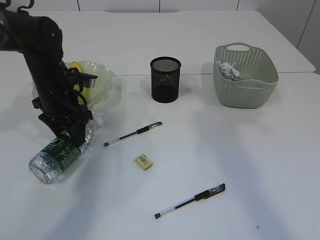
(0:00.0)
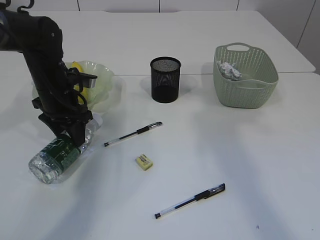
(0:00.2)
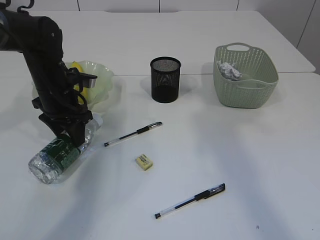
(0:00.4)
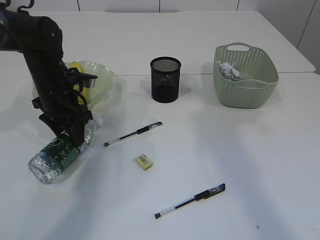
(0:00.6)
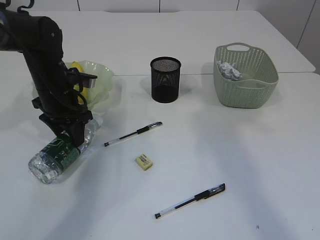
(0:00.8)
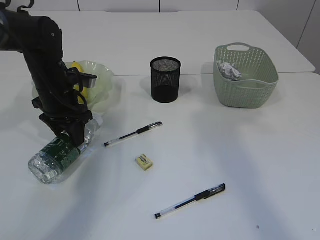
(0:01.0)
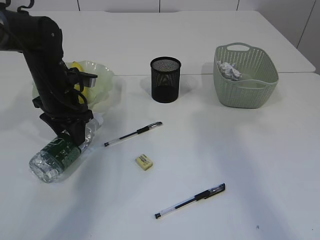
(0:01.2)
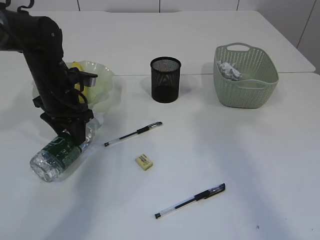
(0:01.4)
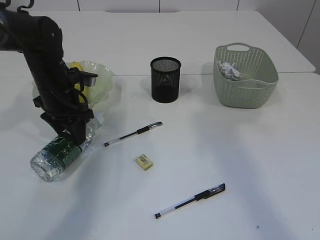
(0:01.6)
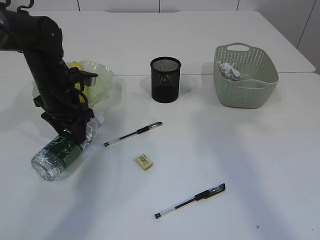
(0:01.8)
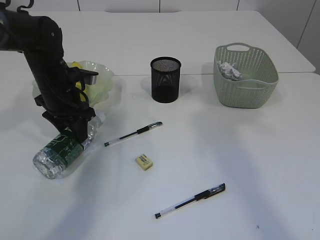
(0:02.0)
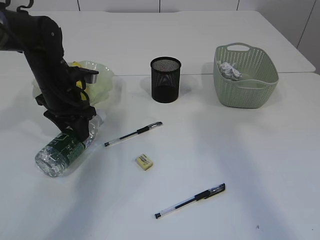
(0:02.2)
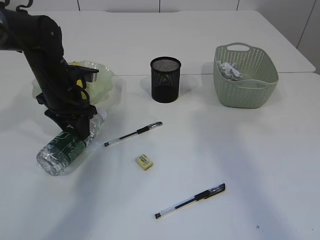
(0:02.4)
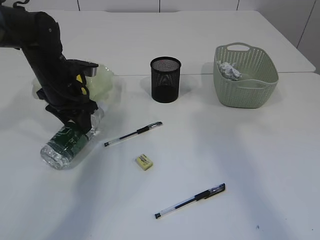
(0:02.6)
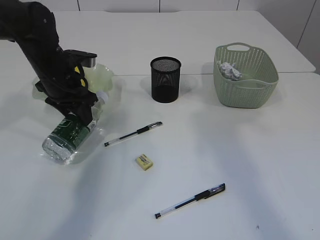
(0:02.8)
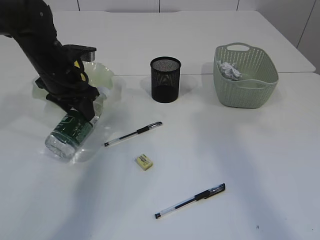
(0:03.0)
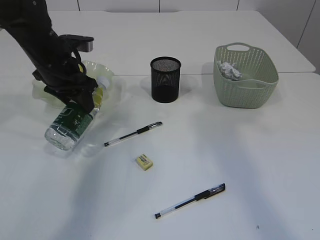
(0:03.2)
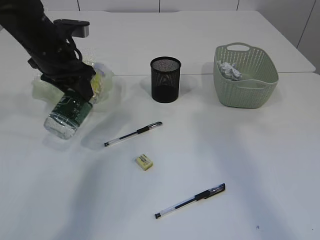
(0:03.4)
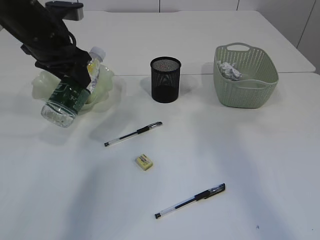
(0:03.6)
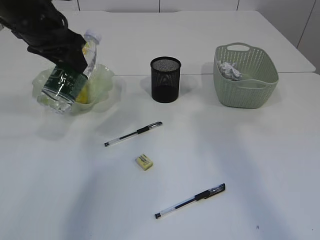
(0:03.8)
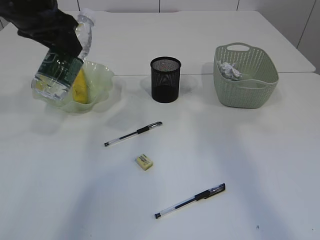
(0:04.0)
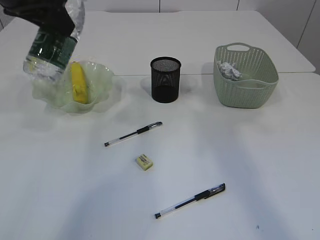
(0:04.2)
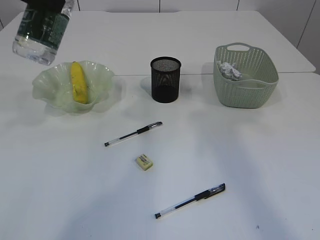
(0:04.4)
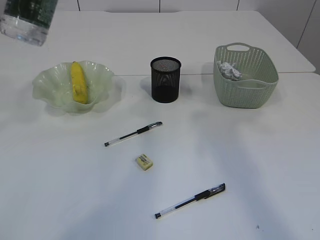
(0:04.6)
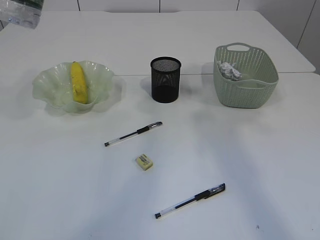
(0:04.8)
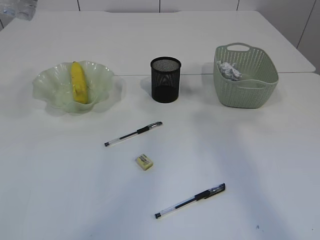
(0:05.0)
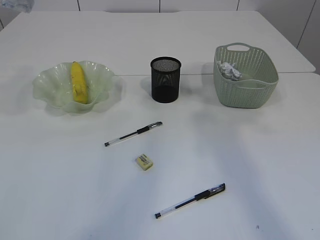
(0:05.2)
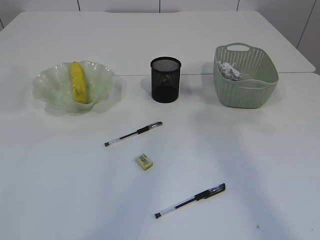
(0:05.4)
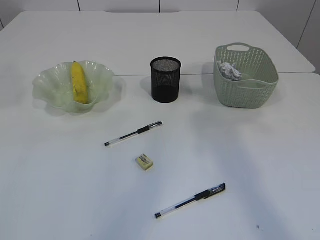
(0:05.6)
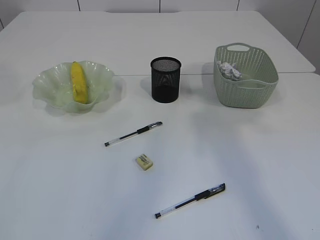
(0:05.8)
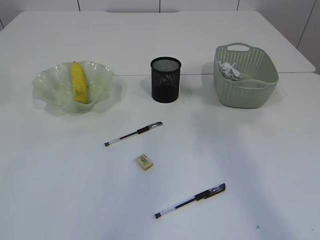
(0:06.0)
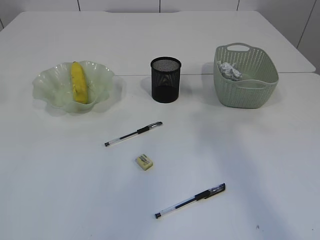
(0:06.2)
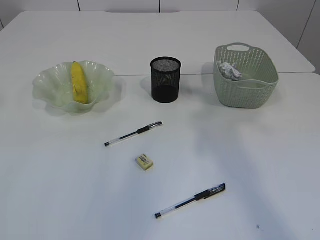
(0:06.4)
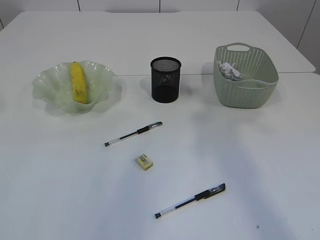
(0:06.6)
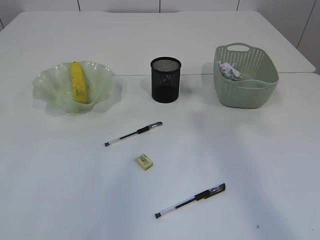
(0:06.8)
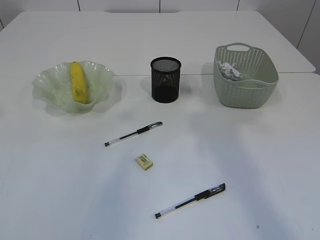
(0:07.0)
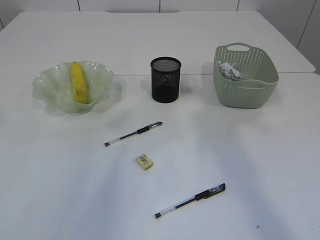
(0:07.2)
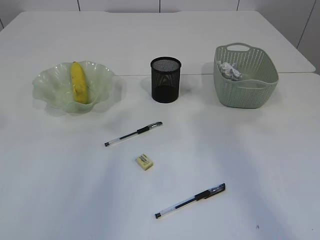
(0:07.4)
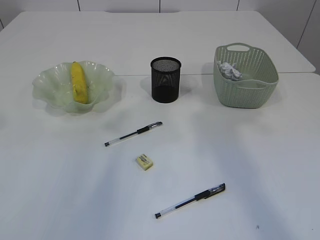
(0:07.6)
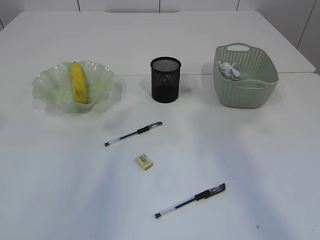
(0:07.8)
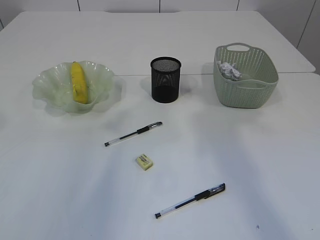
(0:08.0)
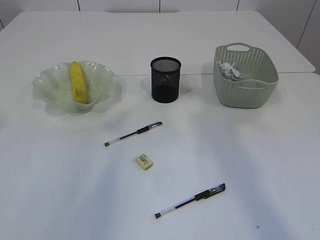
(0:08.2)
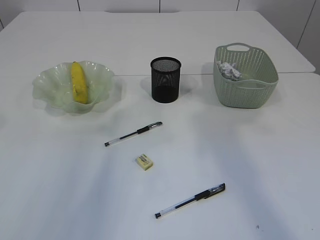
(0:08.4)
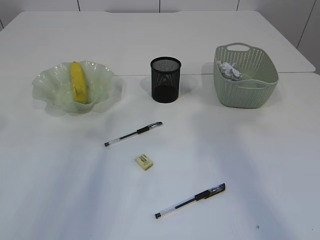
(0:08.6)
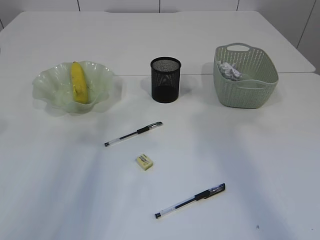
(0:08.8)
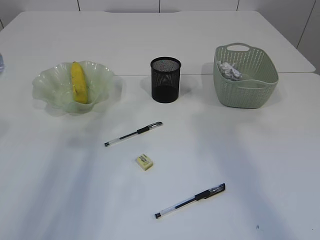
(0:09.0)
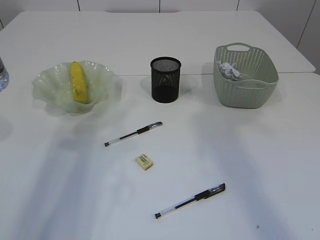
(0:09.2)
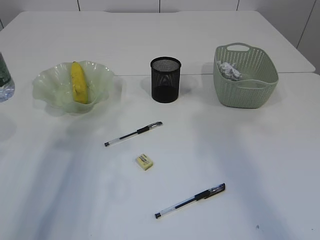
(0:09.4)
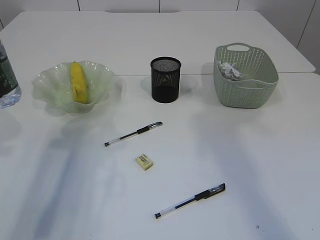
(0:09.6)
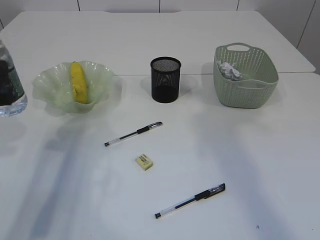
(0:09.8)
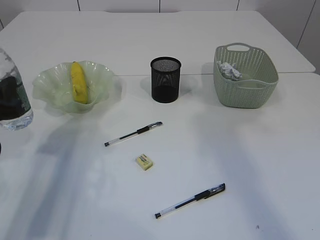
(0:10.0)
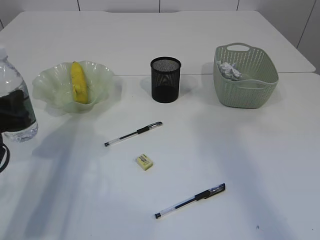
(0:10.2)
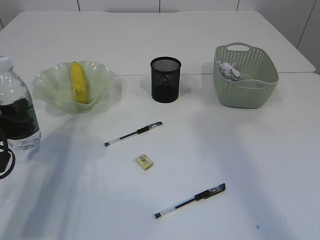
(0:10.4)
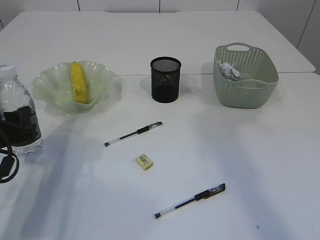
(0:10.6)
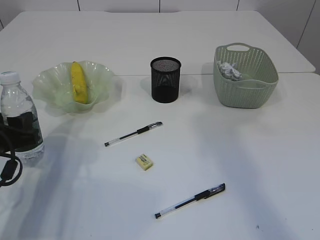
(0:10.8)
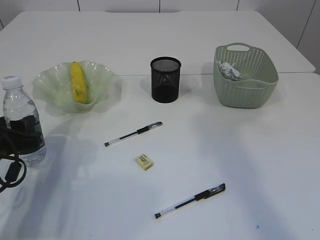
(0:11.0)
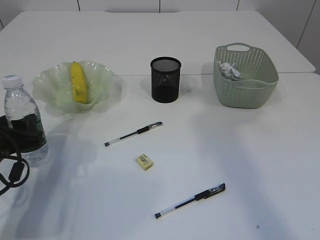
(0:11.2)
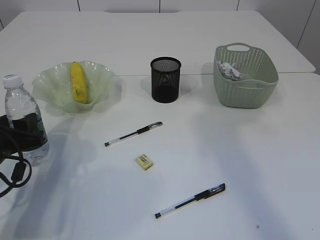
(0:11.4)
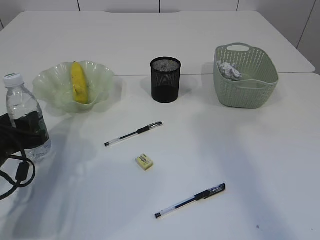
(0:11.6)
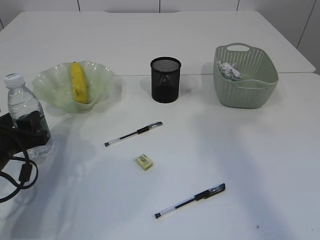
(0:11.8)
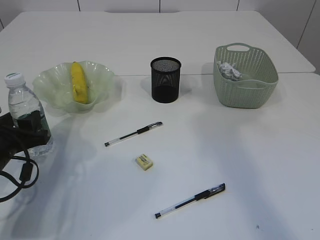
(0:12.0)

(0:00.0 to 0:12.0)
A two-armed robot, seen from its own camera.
0:00.0 - 0:01.6: Both grippers stay about where they are.
0:01.6 - 0:03.0: The grippers move only a little.
0:03.0 - 0:04.4: The left gripper goes roughly 20 cm upward.
0:04.4 - 0:06.0: The left gripper is displaced upward and backward by some 15 cm.
0:09.0 - 0:10.4: The left gripper travels downward by approximately 15 cm.
0:10.4 - 0:12.0: The left gripper moves downward, some 5 cm.

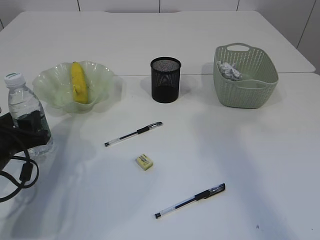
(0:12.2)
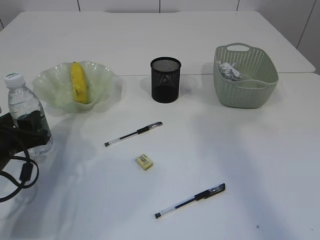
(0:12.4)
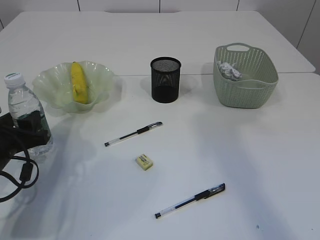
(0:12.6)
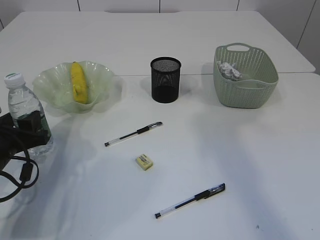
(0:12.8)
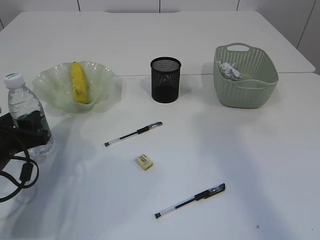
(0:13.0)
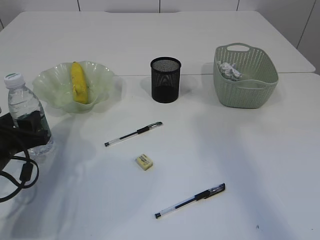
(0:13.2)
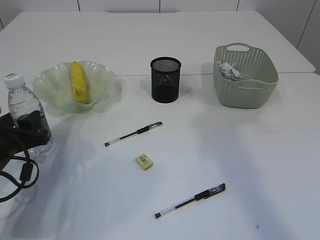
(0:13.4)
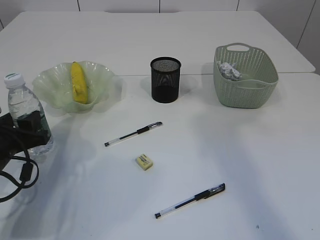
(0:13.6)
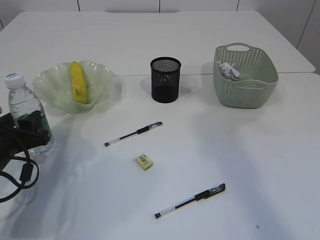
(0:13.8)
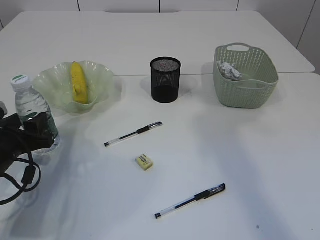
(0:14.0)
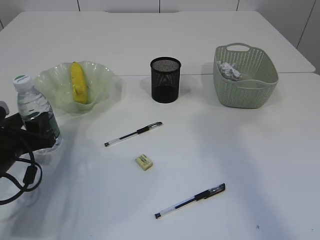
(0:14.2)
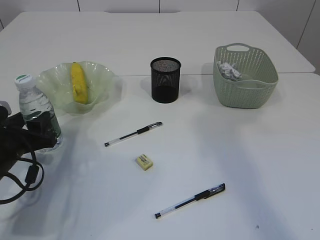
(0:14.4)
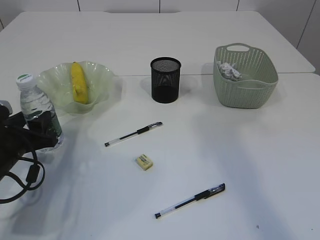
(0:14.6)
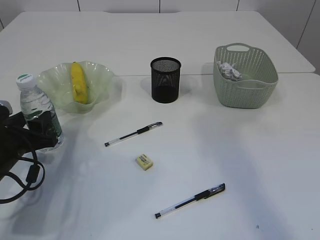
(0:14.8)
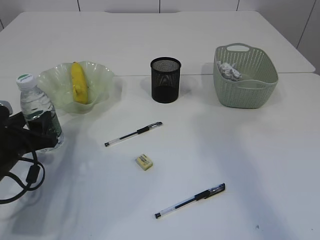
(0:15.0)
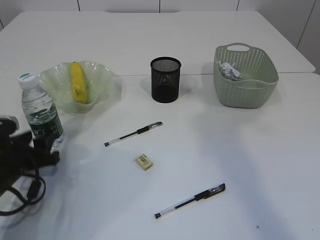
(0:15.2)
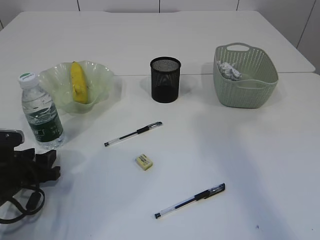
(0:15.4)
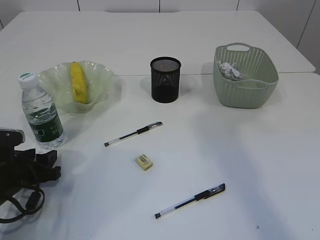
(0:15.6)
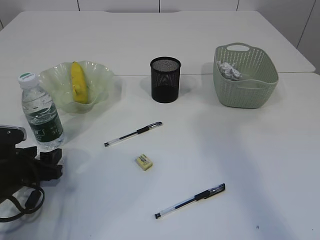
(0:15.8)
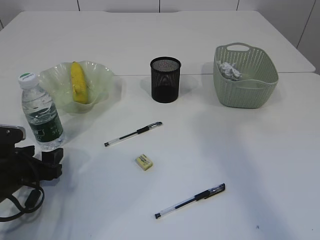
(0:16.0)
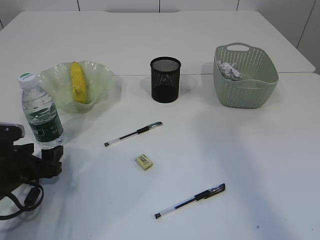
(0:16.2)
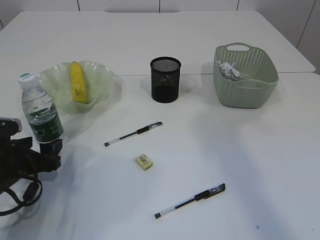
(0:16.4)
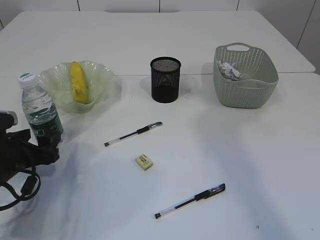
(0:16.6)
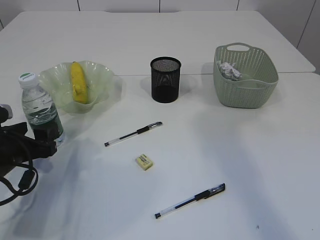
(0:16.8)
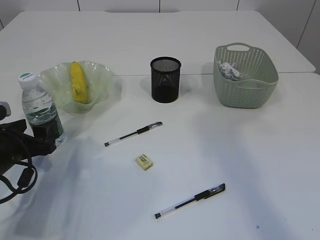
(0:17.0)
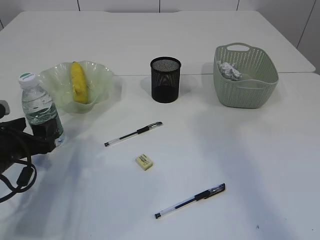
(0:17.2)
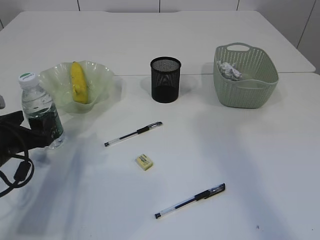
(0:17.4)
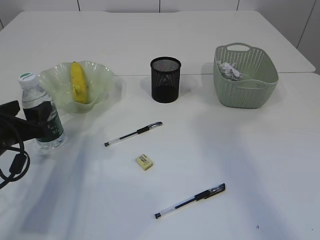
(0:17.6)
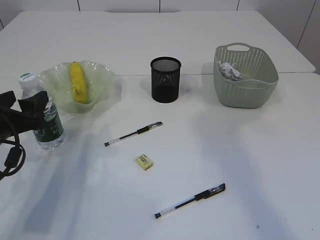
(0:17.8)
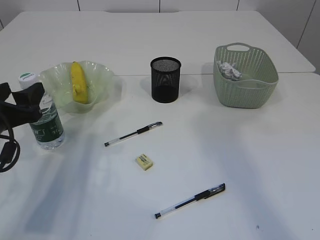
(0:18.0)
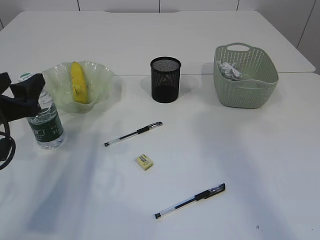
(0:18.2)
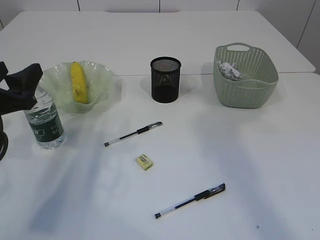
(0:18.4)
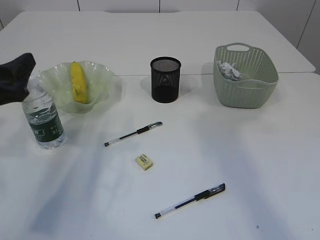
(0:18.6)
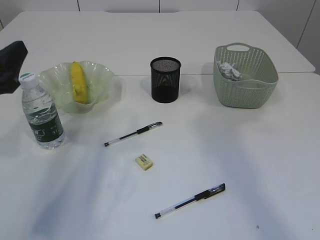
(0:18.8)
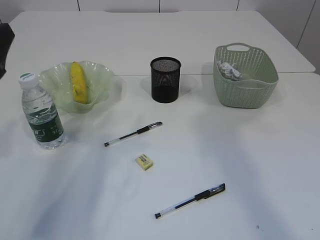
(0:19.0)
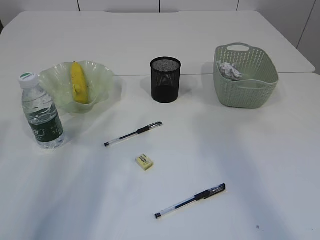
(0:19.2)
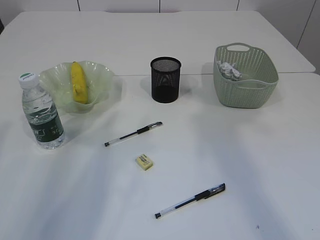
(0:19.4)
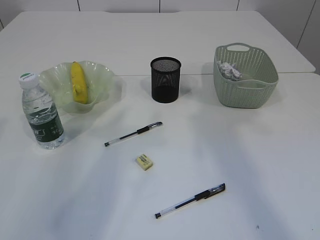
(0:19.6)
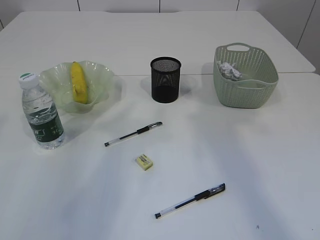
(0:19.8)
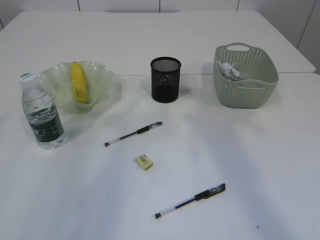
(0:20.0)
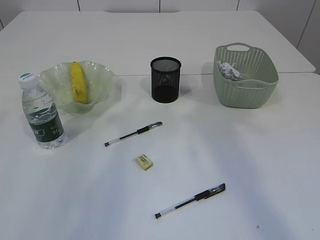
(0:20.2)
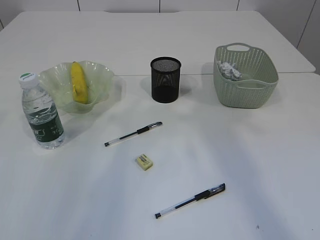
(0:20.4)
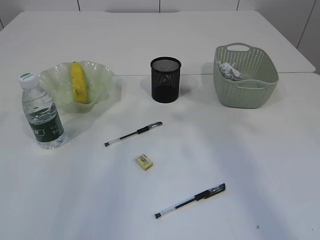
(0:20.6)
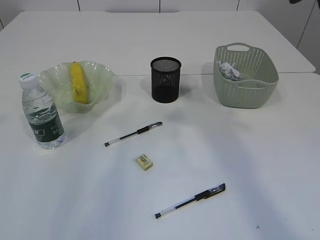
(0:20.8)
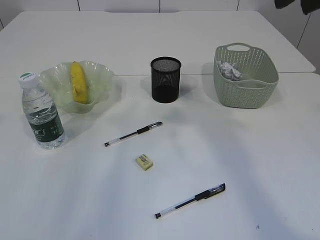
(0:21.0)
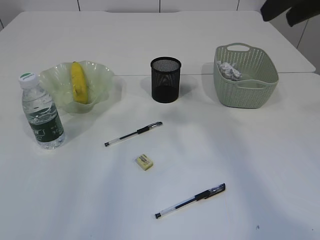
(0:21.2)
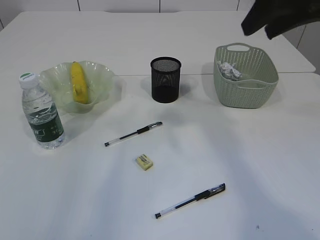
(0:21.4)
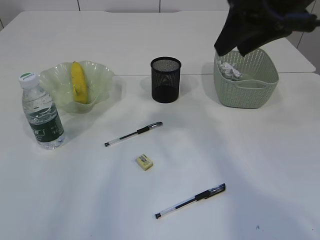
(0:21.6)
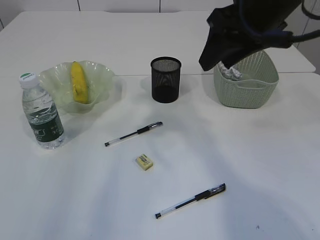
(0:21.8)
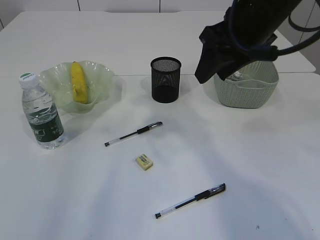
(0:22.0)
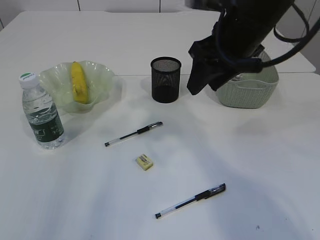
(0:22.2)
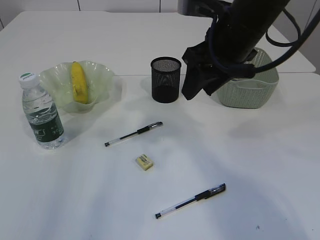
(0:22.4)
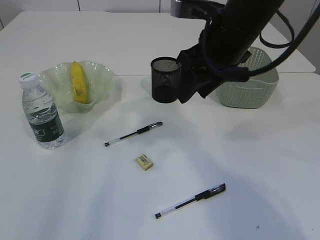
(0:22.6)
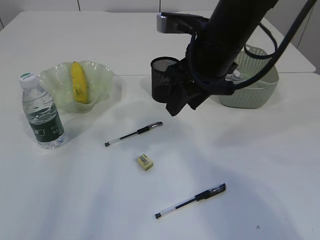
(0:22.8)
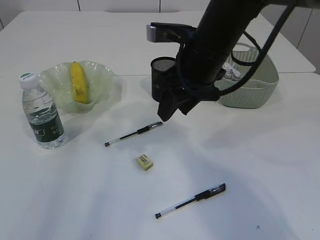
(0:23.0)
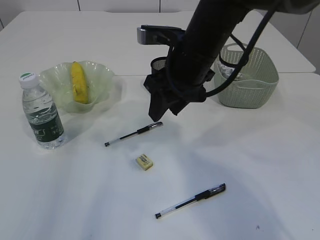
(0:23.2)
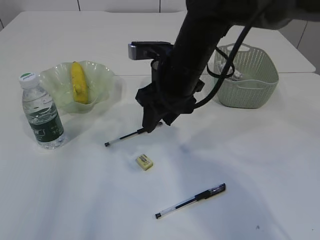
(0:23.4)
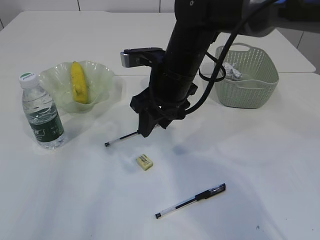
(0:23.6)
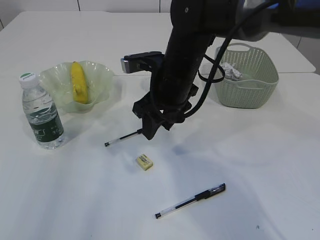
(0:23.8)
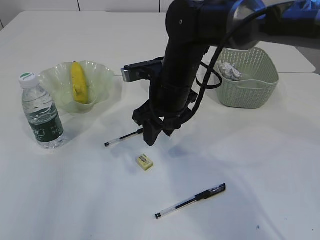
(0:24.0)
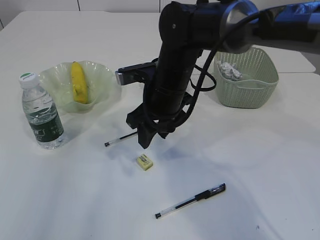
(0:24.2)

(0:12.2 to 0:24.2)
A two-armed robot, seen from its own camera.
Step, 0:12.2 - 0:18.4: Place the bottle.
0:12.2 - 0:13.8: Both grippers stay about where they are.
0:13.8 - 0:16.6: There are only small adjustments of the grippers.
0:16.6 - 0:18.2: The left gripper is displaced upward by approximately 10 cm.
0:18.2 - 0:19.8: The left gripper heads upward, covering about 15 cm.
0:19.8 - 0:21.2: The right gripper moves approximately 5 cm.
0:21.2 - 0:22.6: The right gripper shifts approximately 15 cm to the left and downward.
0:22.6 - 0:24.2: The right gripper shifts roughly 15 cm downward and to the left.
